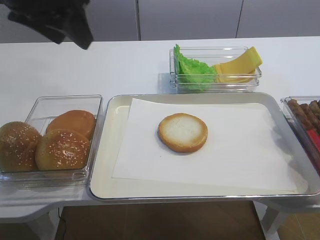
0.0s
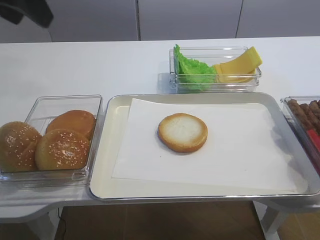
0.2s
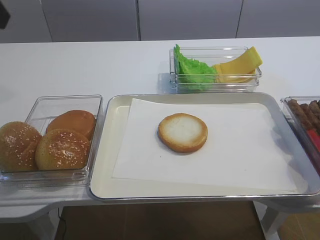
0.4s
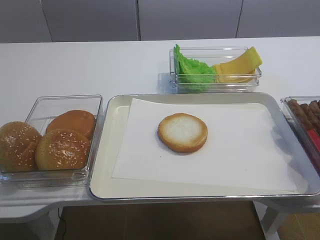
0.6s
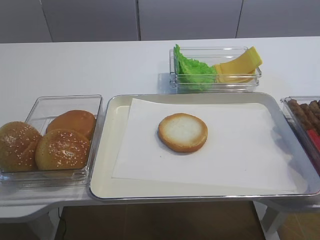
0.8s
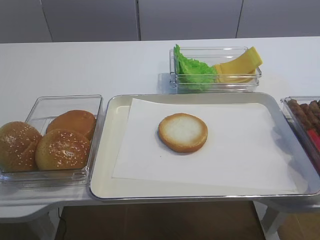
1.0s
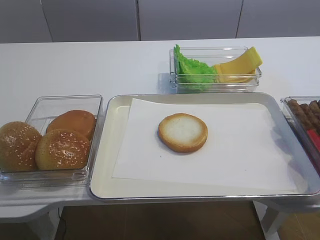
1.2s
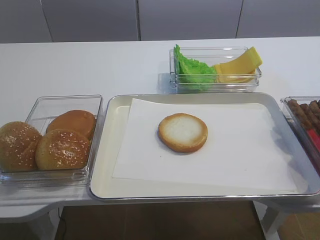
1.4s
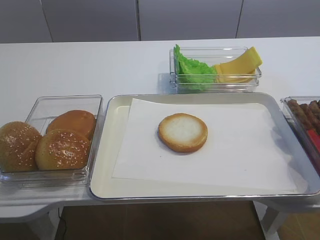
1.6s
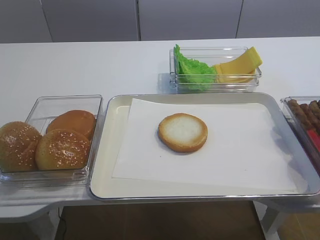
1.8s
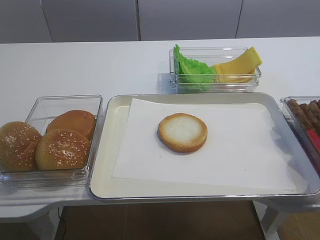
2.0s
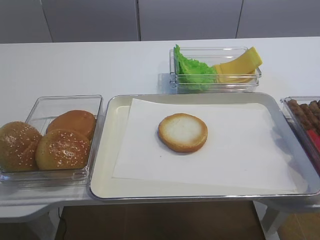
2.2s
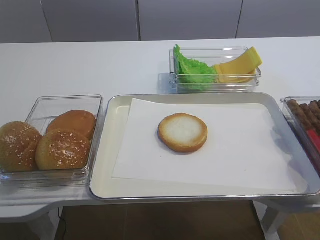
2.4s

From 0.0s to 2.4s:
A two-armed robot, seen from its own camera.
From 0.0s to 1.2s: The left gripper shifts approximately 25 cm backward and to the left.

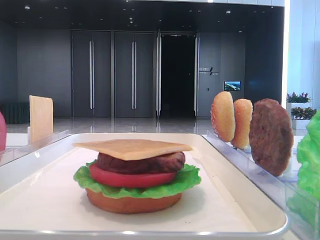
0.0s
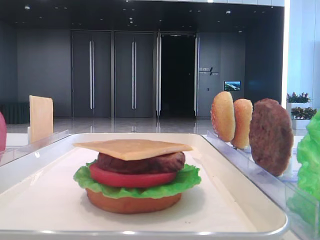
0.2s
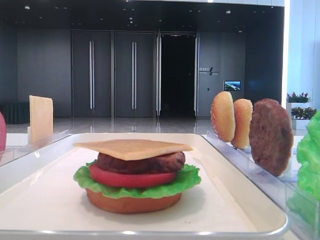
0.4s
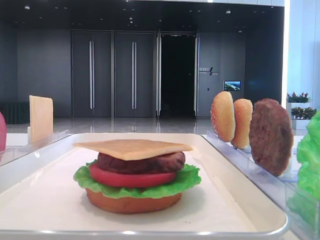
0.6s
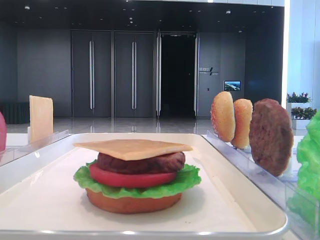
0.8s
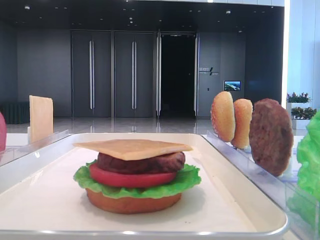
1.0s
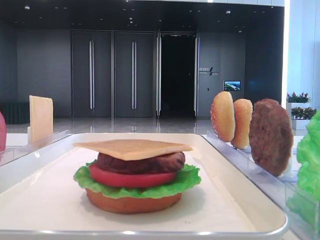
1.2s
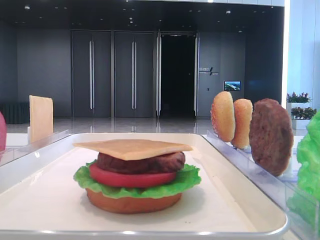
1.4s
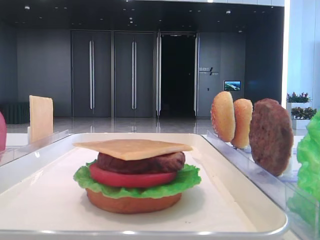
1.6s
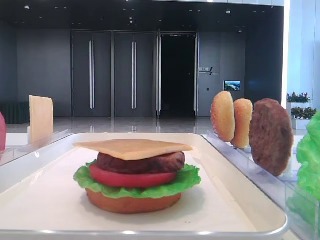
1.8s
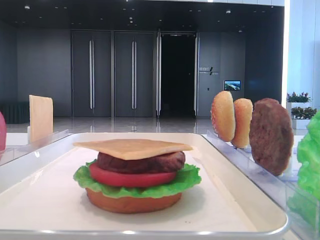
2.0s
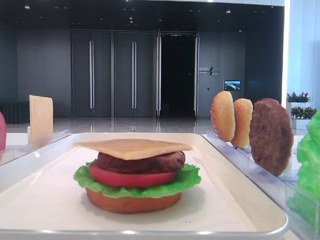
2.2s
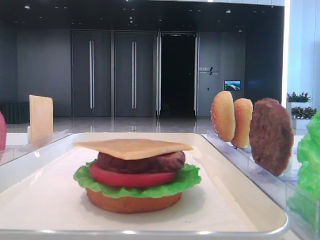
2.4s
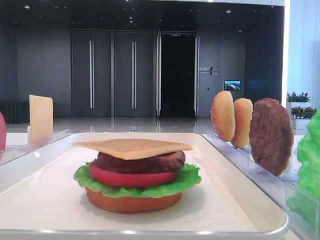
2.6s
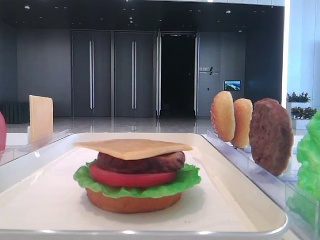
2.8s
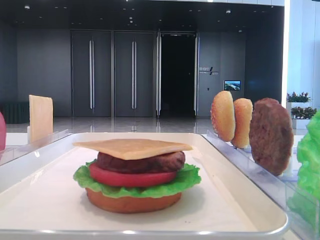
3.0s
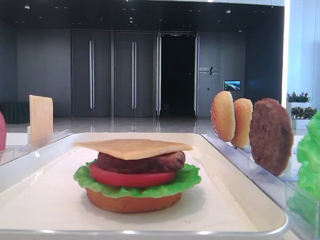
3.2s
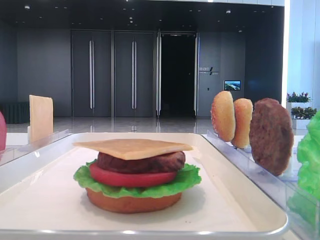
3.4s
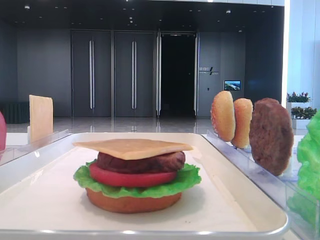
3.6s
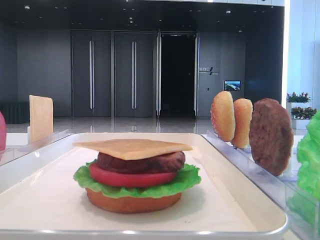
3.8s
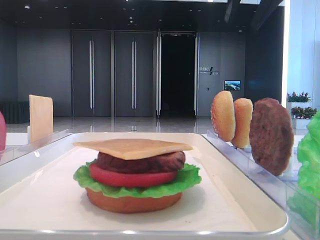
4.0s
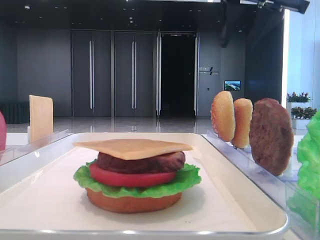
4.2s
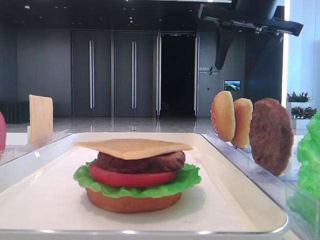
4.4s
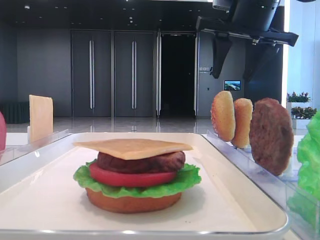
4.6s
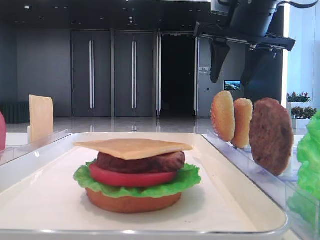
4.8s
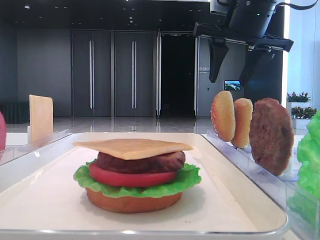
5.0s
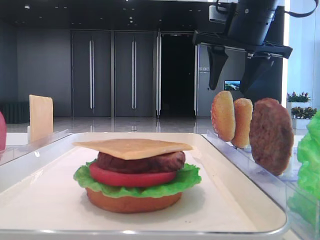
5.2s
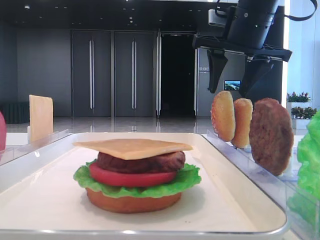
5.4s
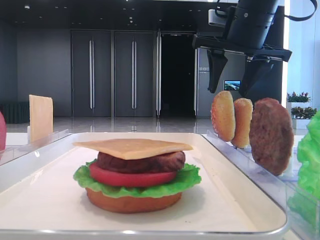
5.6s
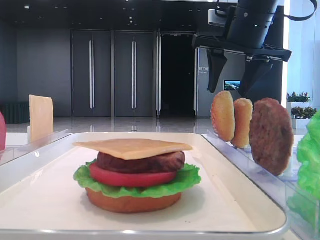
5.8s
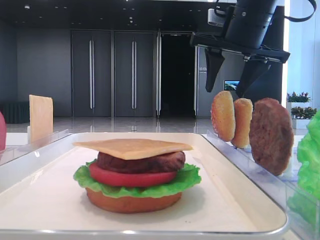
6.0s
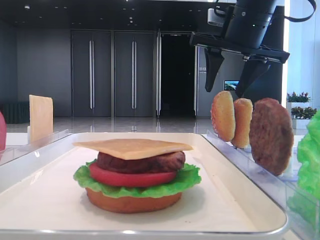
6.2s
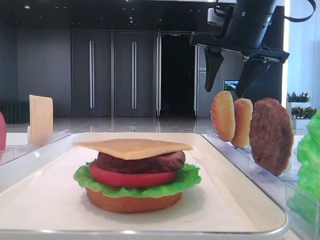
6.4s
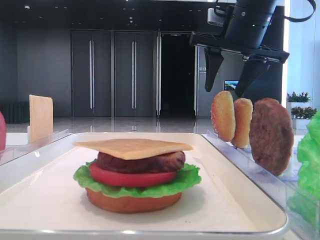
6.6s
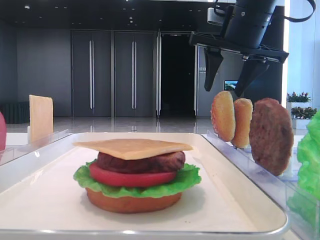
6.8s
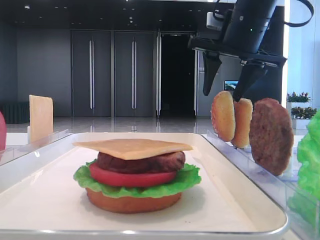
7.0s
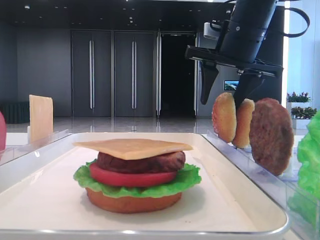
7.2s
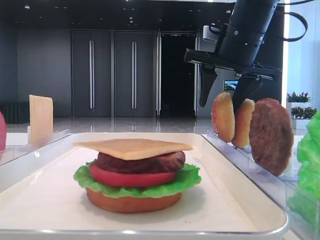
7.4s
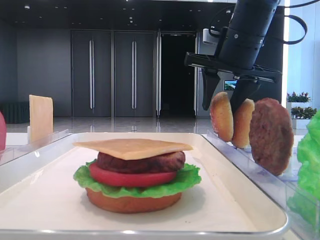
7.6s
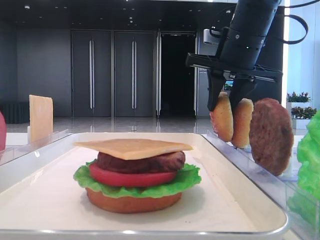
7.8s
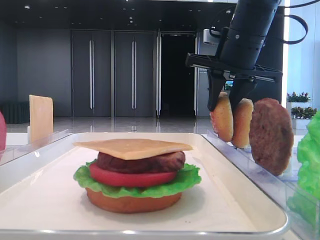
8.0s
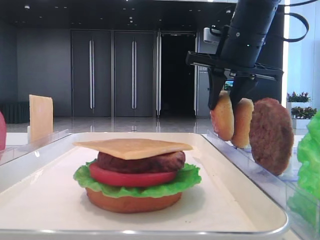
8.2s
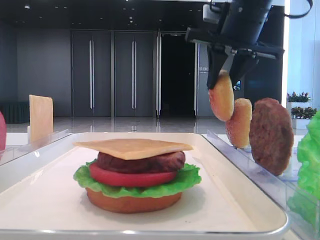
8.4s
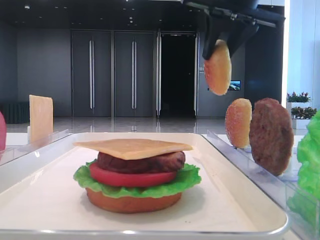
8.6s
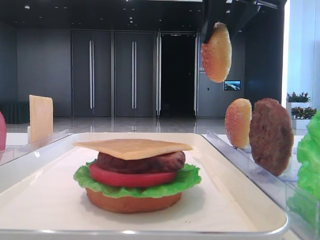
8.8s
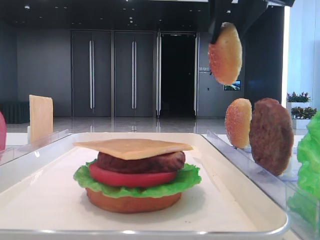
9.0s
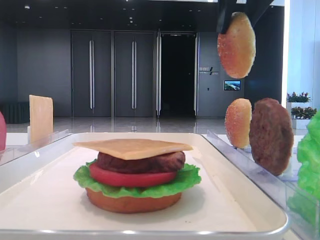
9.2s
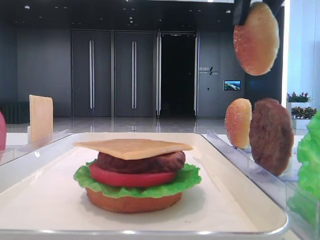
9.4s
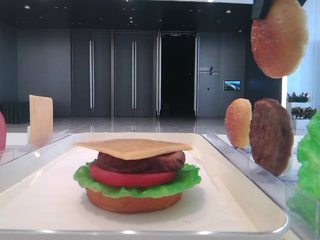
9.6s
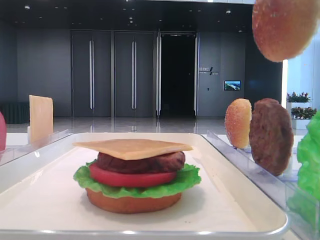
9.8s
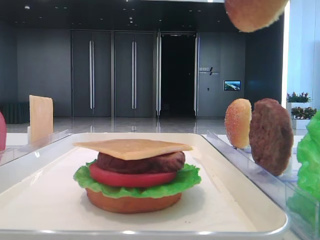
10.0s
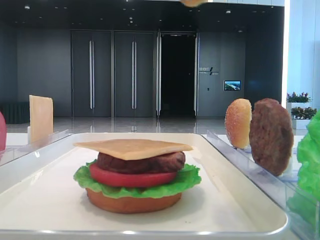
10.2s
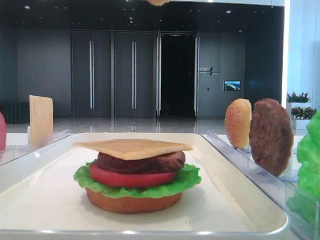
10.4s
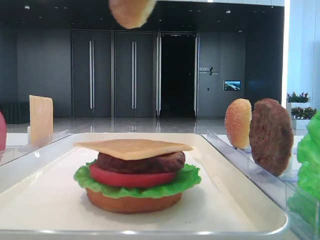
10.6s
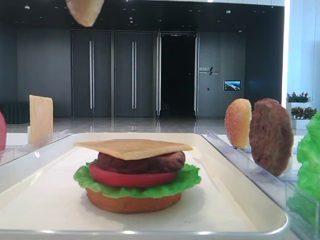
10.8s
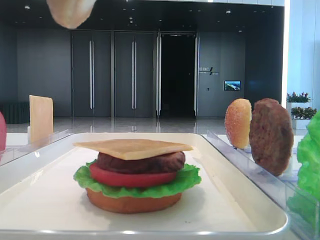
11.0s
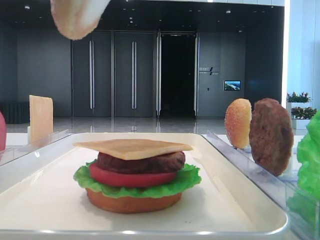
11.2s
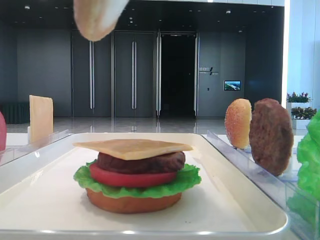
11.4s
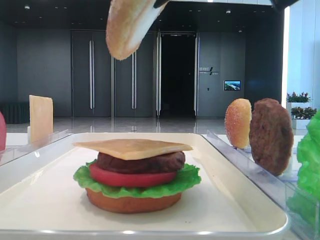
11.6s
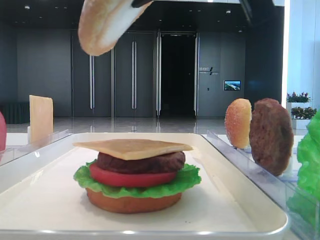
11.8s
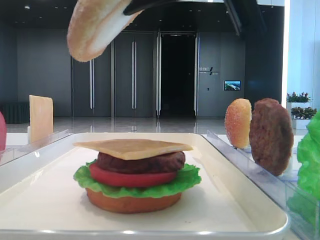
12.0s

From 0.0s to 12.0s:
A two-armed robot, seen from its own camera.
Step, from 0.0s to 8.0s: Pick up the top bread slice with the right hand.
From 3.0s to 4.4s: The right gripper heads to the left, downward and forward, covering approximately 15 cm, and opens up.
From 4.4s to 6.0s: The grippers move only a little.
From 6.0s to 7.6s: The grippers make only small movements.
From 7.6s to 9.0s: The right gripper goes some 15 cm upward and backward, and closes its fingers.
From 9.0s to 10.4s: The right gripper goes some 20 cm backward.
From 10.4s to 12.0s: The right gripper is displaced downward and forward by roughly 10 cm.

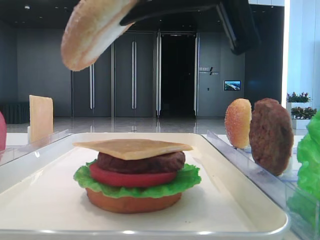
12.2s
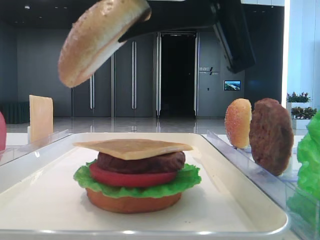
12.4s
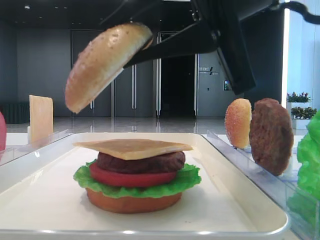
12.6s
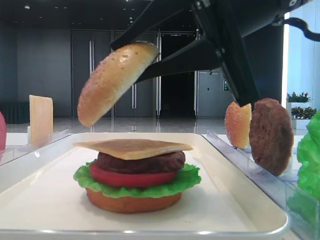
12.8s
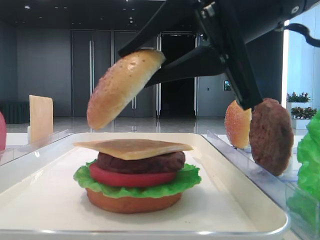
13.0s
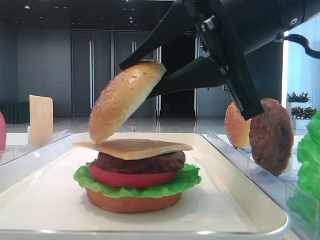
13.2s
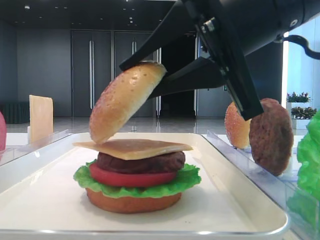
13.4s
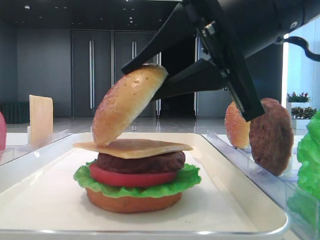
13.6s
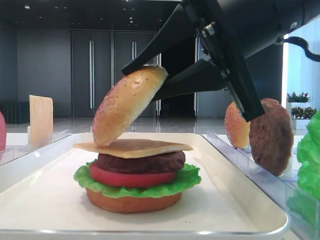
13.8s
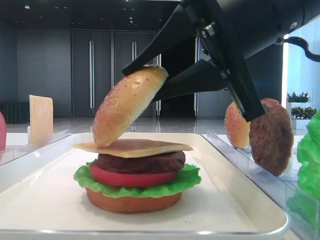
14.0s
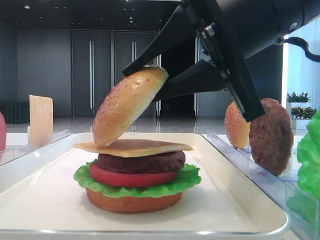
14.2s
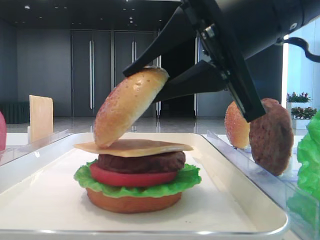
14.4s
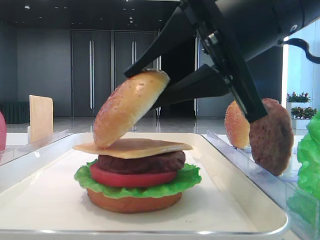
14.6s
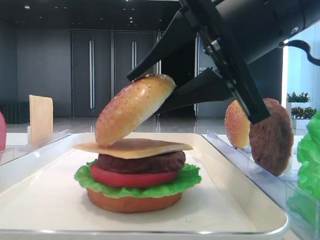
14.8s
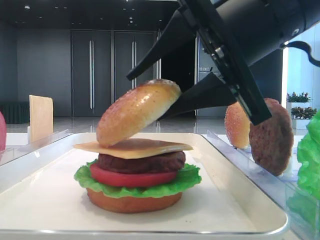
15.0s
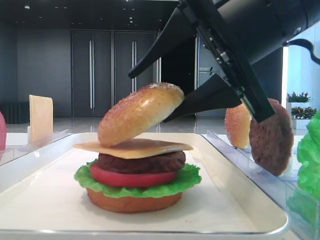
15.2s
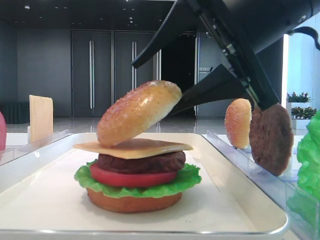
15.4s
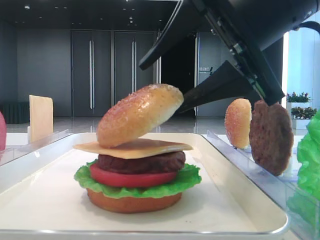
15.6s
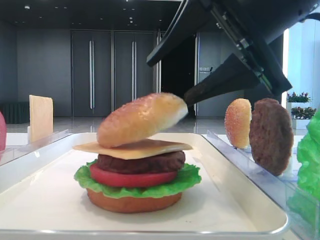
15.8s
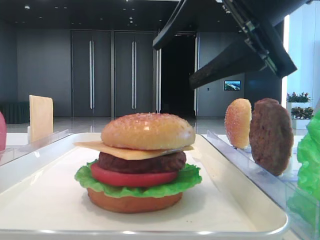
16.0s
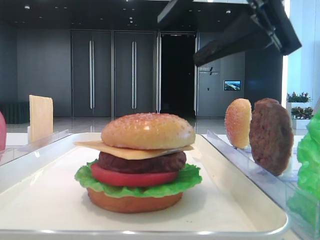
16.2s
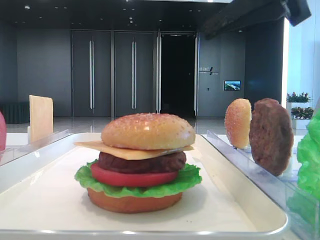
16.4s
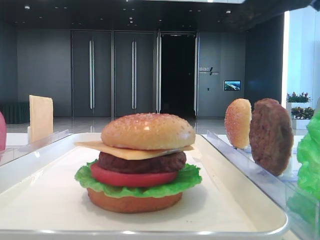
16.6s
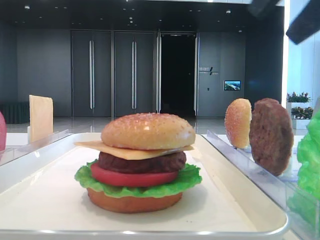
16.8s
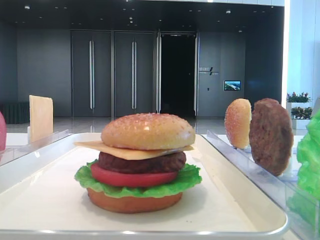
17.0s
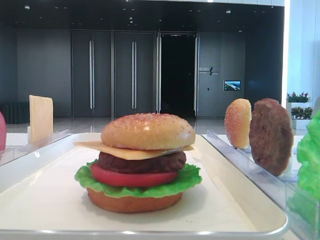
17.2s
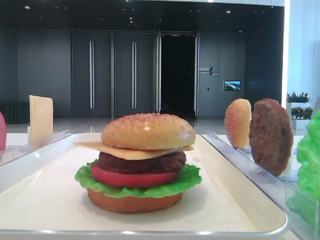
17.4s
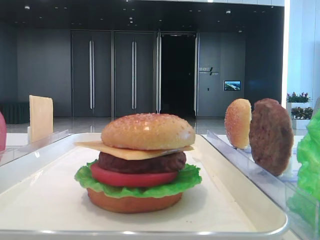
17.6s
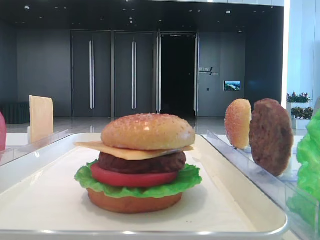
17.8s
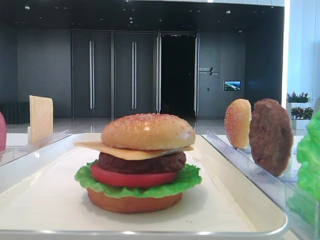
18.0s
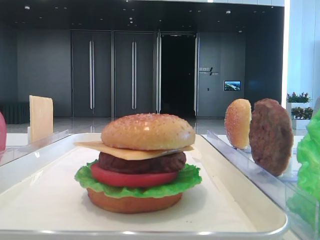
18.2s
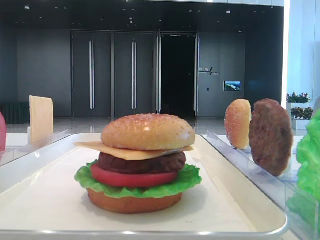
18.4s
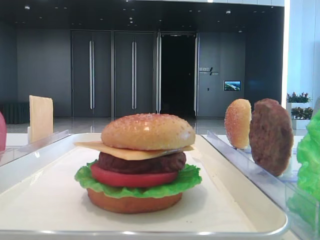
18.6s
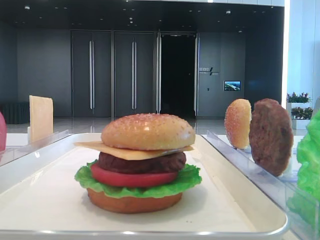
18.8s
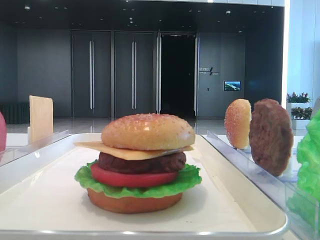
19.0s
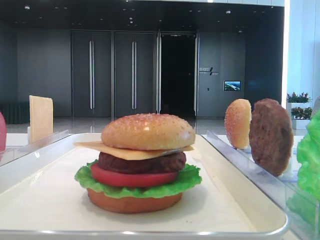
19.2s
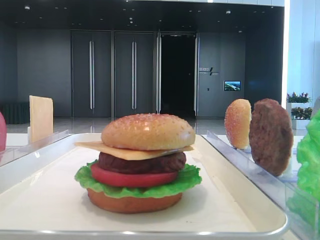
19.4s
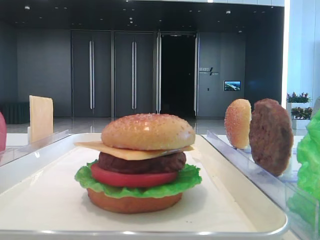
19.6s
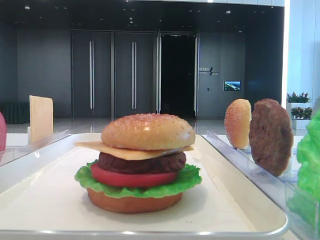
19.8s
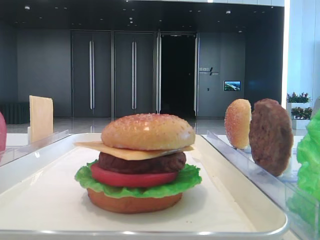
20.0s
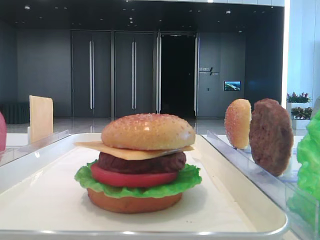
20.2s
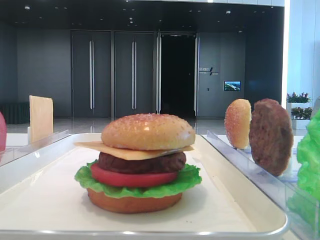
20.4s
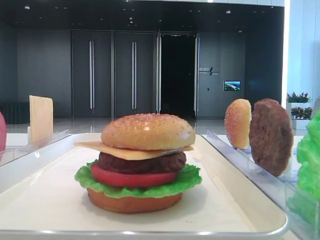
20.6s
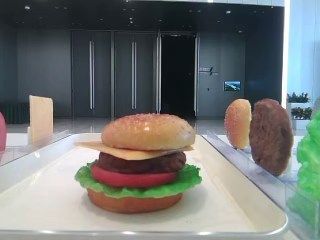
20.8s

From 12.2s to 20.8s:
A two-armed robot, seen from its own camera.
Step, from 12.2s to 15.8s: Place the top bread slice on the cheese with the right hand.
From 12.2s to 13.6s: The right gripper travels downward by roughly 5 cm.
From 13.6s to 15.0s: The right gripper opens.
From 15.0s to 16.6s: The right gripper travels upward by about 10 cm, and opens.
From 16.6s to 18.0s: The right gripper moves backward and to the right, some 25 cm.
From 19.4s to 20.8s: The two grippers keep their place.
